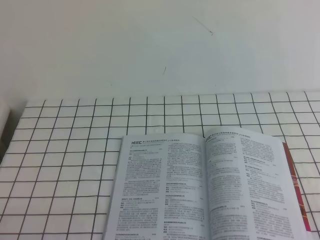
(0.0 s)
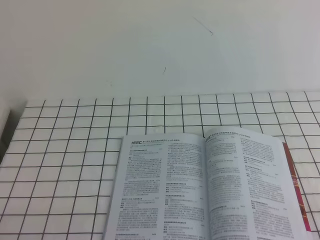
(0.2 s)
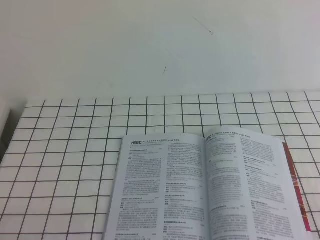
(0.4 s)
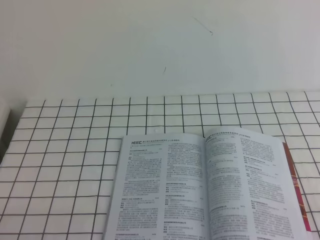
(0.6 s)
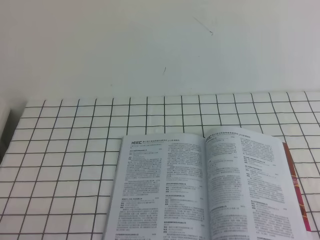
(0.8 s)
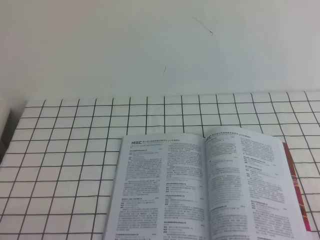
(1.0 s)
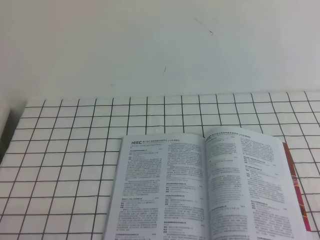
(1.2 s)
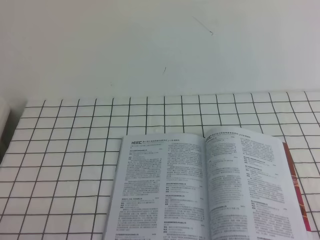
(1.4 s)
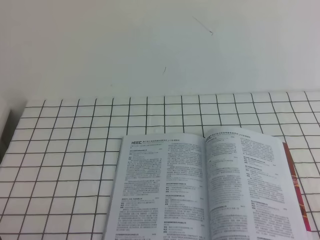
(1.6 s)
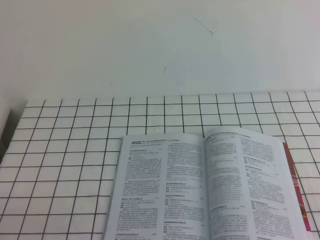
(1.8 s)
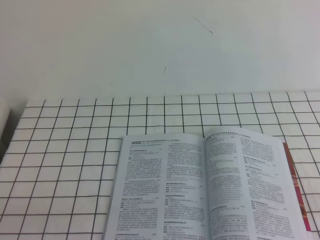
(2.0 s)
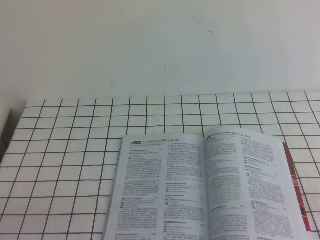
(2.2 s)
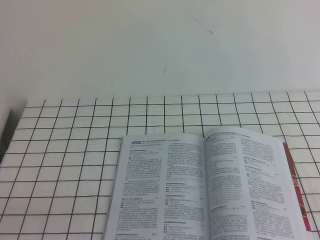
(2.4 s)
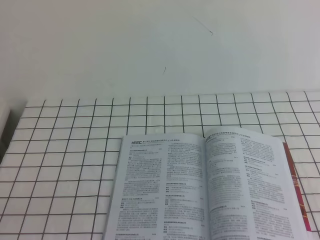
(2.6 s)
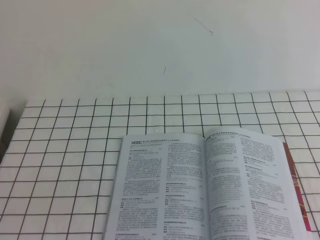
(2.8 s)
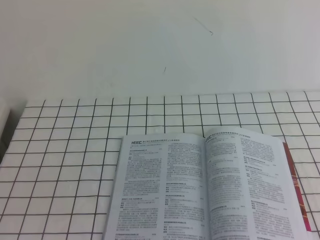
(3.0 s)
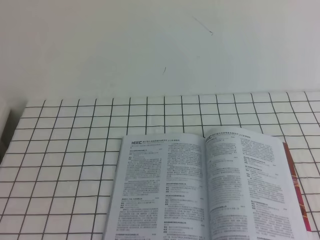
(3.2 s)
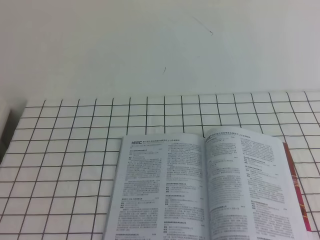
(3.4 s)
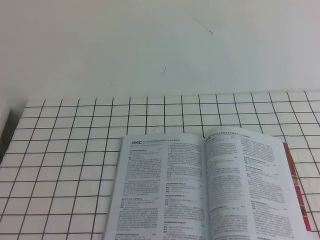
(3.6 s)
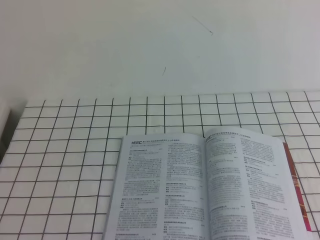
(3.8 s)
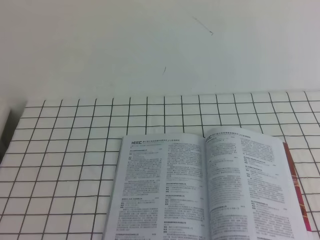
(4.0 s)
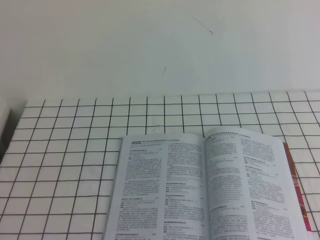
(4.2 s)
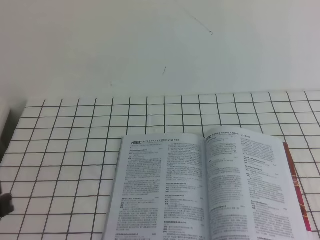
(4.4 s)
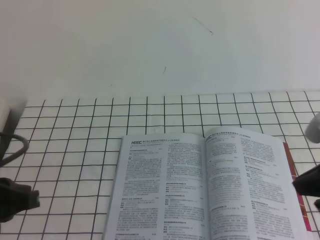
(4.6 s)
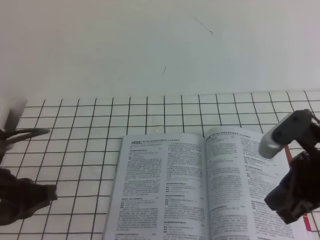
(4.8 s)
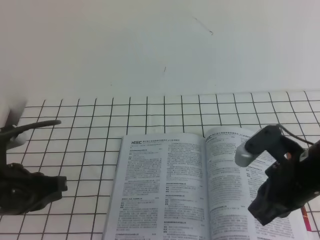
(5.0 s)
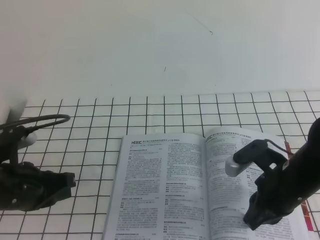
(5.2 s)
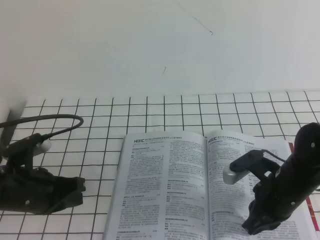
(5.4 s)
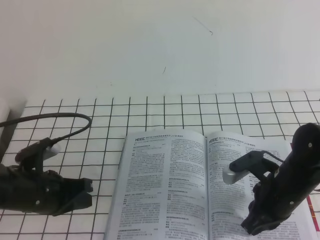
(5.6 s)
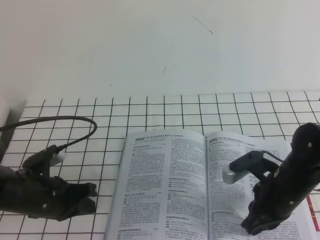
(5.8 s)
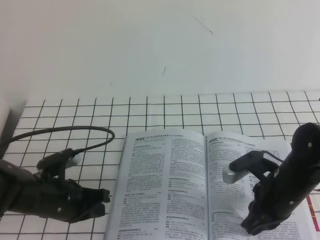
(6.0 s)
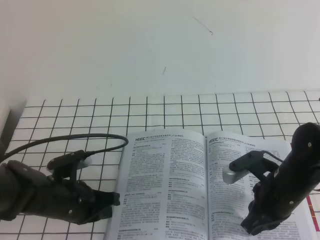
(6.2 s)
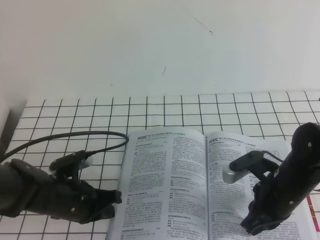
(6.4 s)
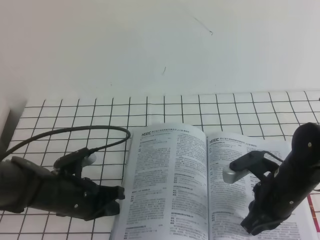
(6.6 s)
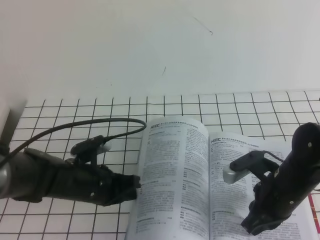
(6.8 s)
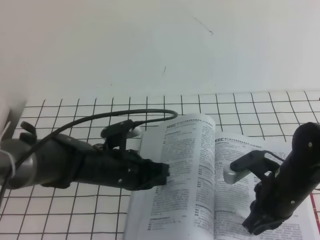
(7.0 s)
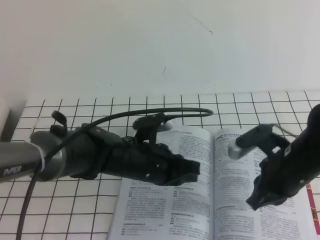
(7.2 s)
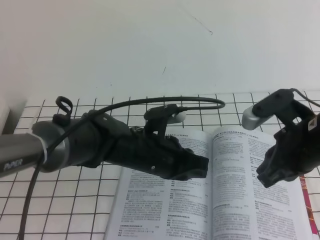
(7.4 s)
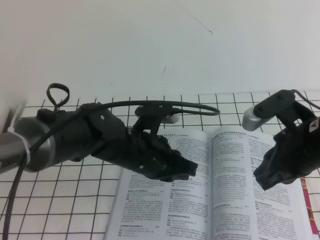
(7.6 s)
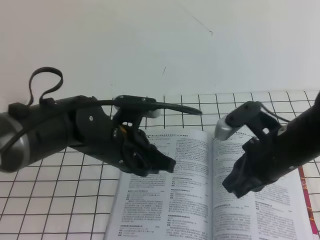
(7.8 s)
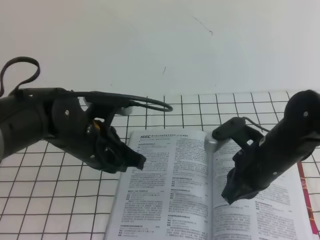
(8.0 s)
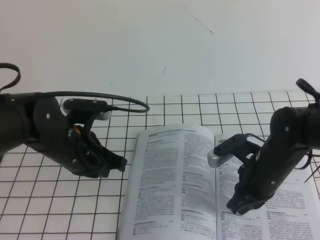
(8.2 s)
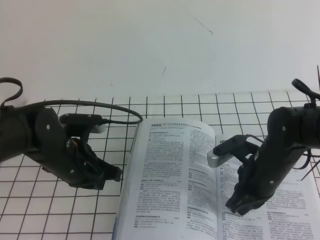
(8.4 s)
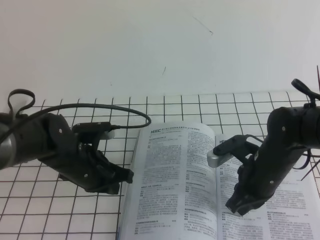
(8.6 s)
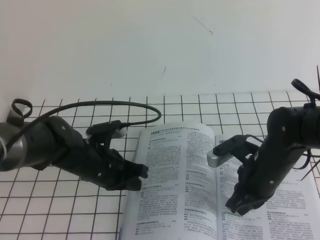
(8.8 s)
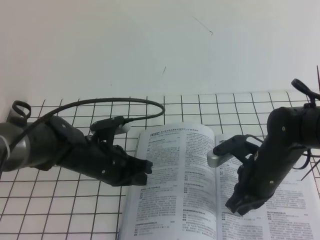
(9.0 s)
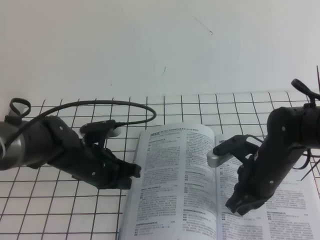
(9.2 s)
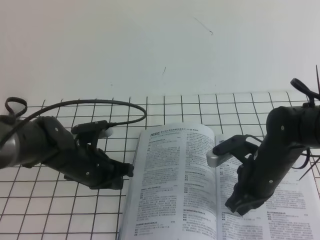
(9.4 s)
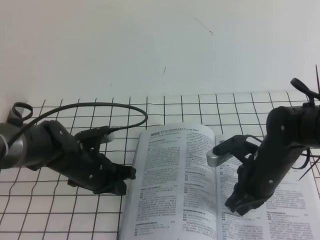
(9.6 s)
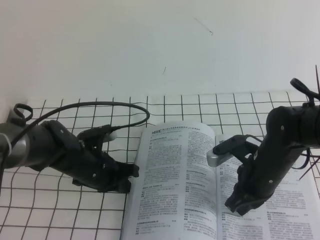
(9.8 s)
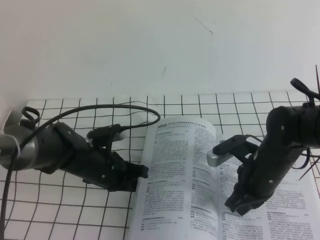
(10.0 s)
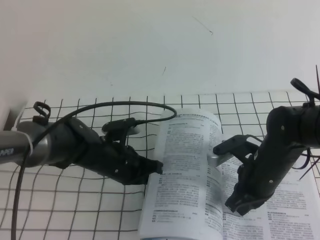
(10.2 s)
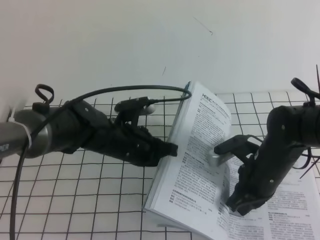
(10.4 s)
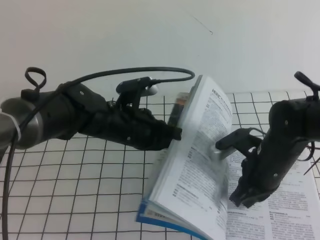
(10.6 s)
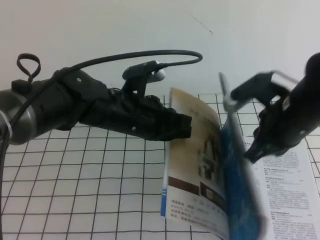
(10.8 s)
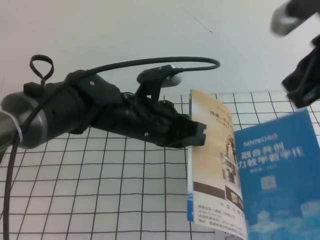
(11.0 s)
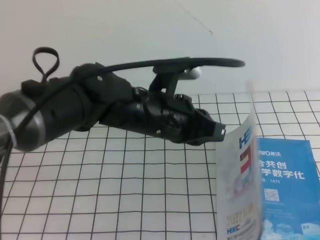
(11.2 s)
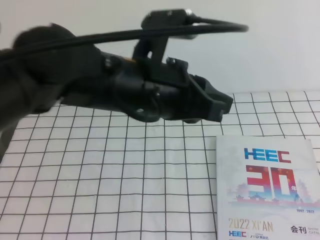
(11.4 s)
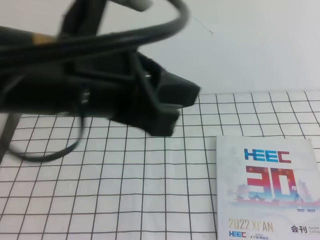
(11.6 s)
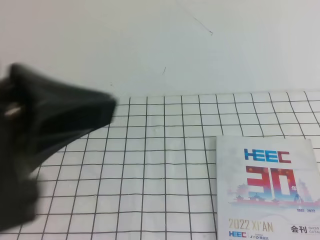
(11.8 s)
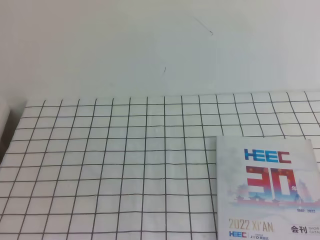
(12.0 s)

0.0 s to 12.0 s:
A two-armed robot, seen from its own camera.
Task of the whole recording: on the white tablecloth, hold the book with one hand and close it with the other.
4.4 to 6.0 s: The right gripper moves downward, forward and to the left, approximately 25 cm. The left gripper heads downward and forward, covering some 20 cm.
6.0 to 7.6 s: The left gripper travels to the right and upward by approximately 15 cm. Meanwhile the right gripper is displaced upward by roughly 10 cm.
7.6 to 9.0 s: The left gripper travels to the left and downward by some 10 cm; the right gripper heads downward, covering about 10 cm.
9.0 to 10.4 s: The left gripper shifts by some 5 cm.
10.4 to 12.0 s: The right gripper goes about 40 cm upward, backward and to the right; the left gripper is displaced backward, upward and to the left by approximately 40 cm.

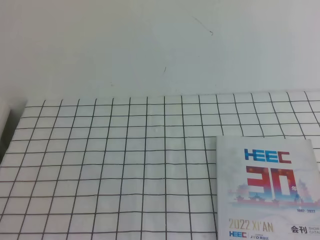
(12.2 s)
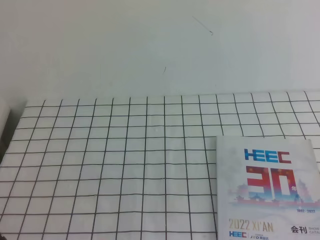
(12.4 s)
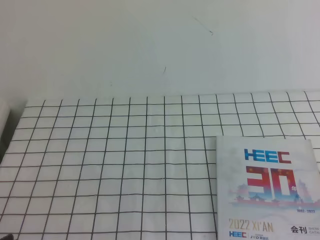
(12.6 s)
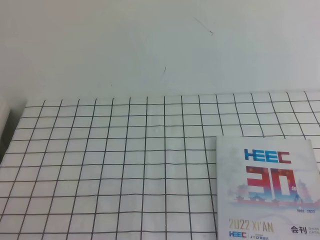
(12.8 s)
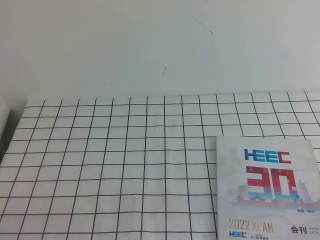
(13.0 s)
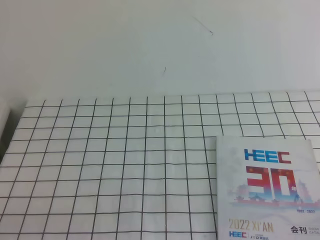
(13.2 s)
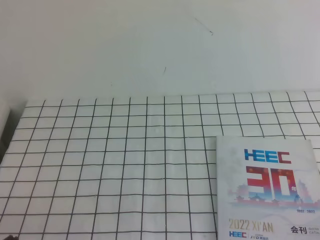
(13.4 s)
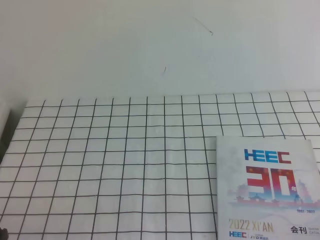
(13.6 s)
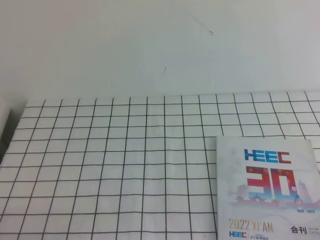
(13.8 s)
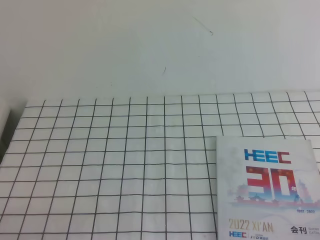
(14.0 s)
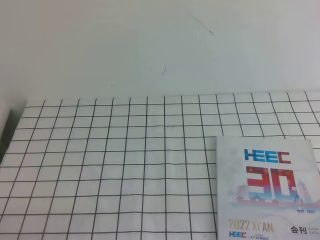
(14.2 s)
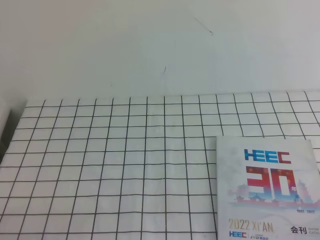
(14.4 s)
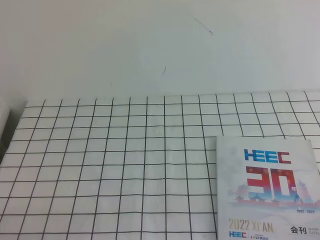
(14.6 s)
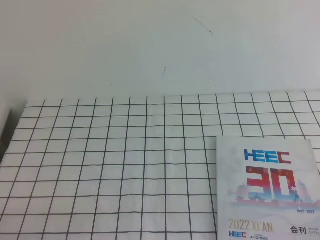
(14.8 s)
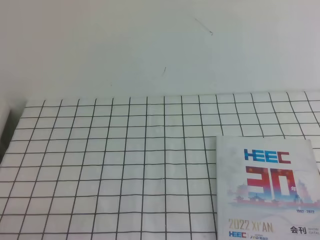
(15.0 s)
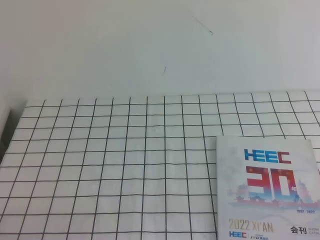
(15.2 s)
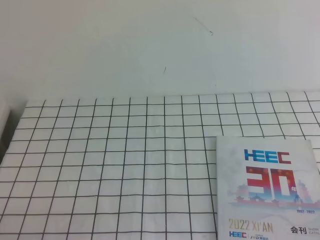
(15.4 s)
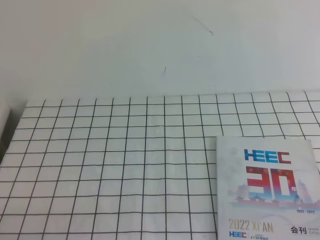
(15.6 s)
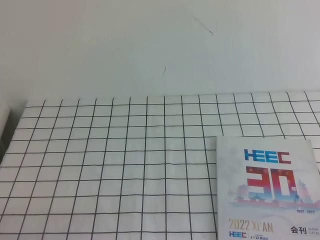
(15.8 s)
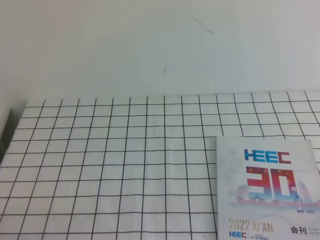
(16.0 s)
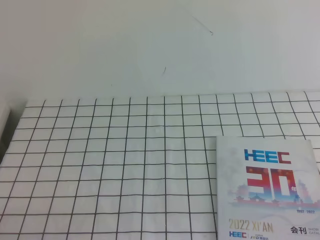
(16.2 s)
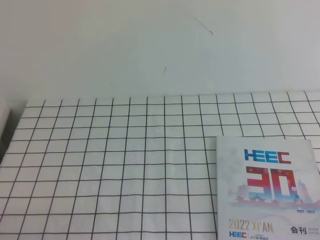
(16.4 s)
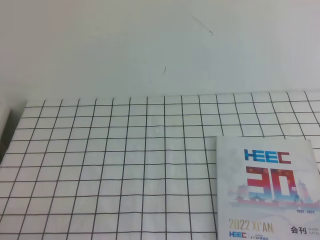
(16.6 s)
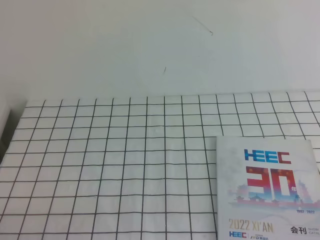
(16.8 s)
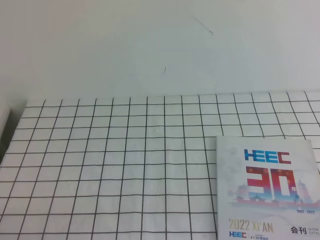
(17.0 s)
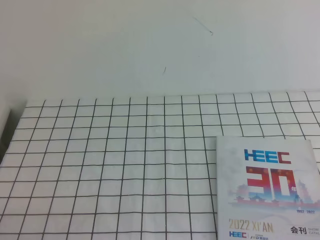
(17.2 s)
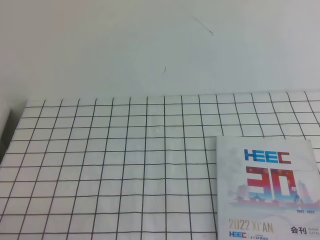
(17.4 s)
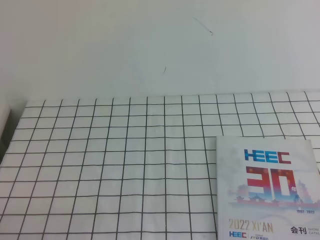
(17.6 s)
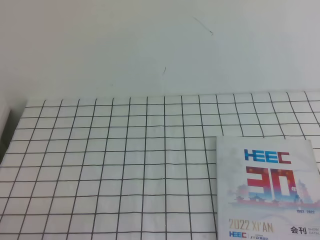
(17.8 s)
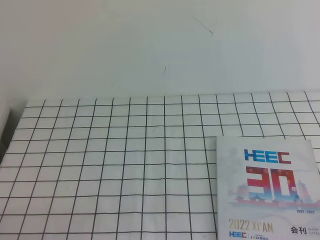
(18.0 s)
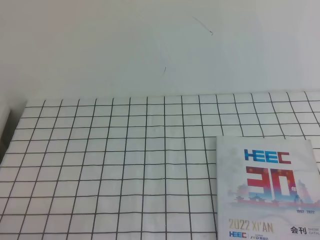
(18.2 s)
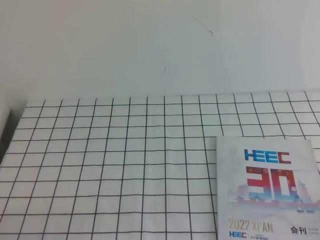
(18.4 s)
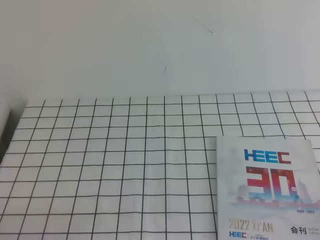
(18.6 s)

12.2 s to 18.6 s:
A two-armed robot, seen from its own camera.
Task of the whole recording: on the white tablecloth, hold the book with one hand and close it with the other.
15.4 to 18.6 s: The two grippers keep their place.
